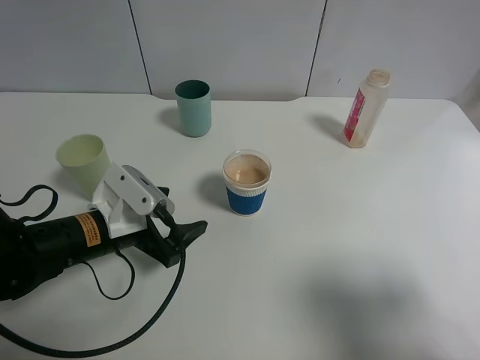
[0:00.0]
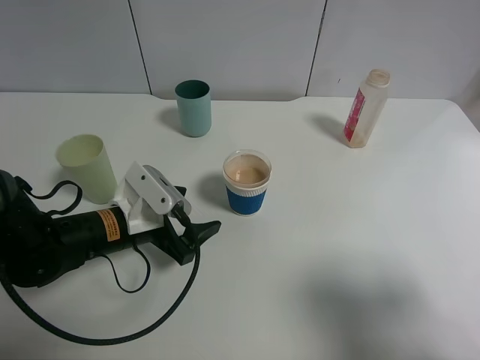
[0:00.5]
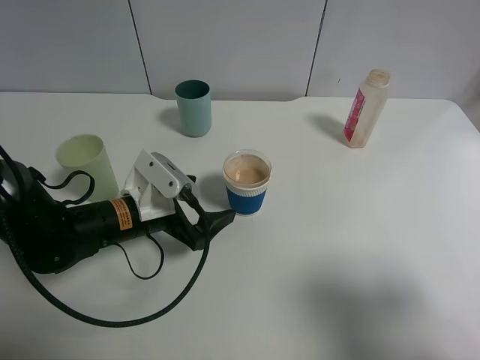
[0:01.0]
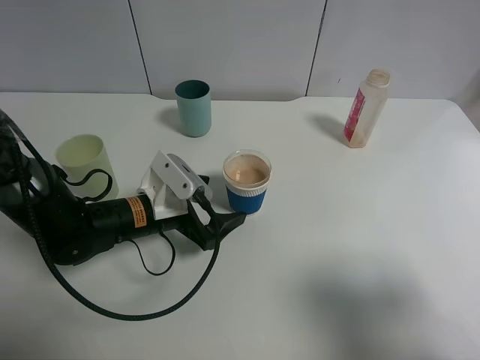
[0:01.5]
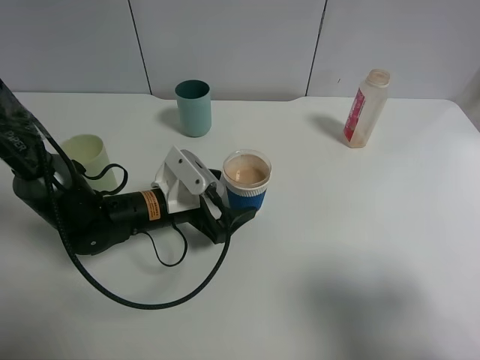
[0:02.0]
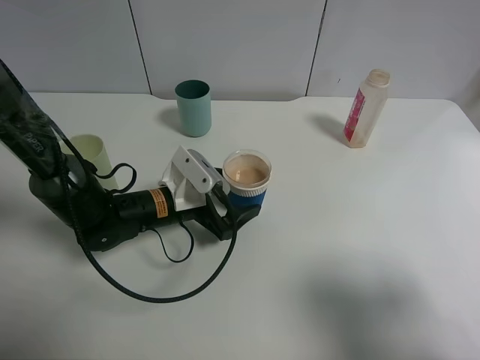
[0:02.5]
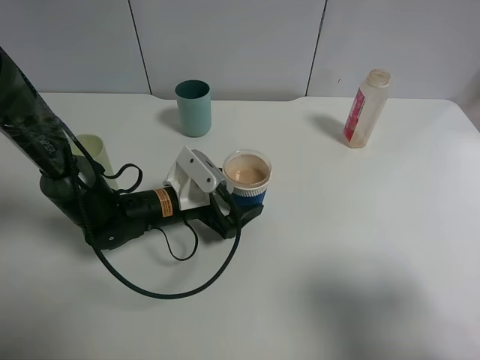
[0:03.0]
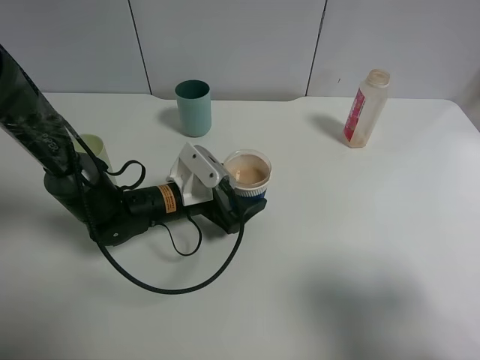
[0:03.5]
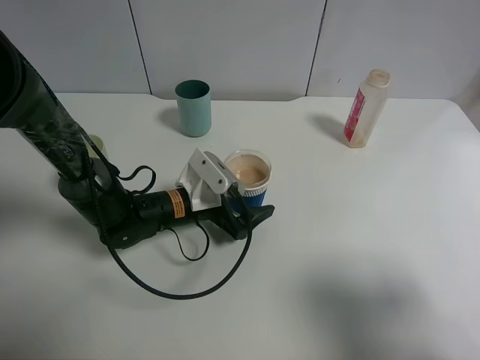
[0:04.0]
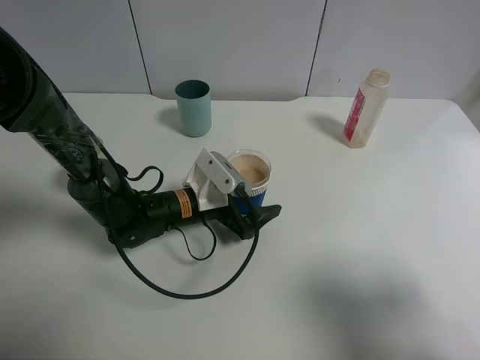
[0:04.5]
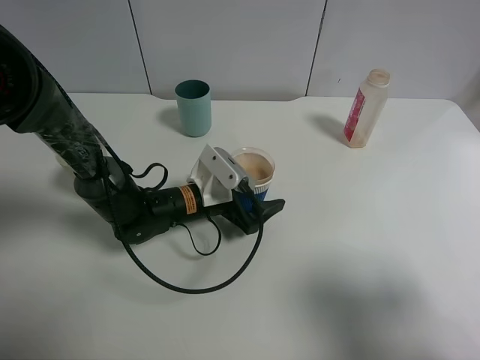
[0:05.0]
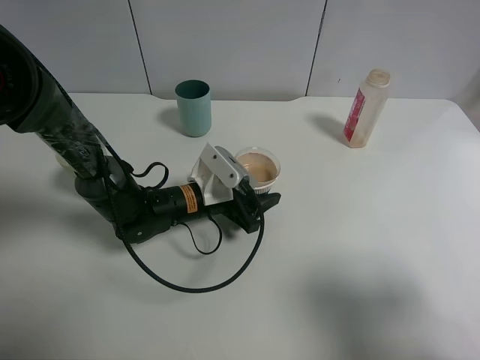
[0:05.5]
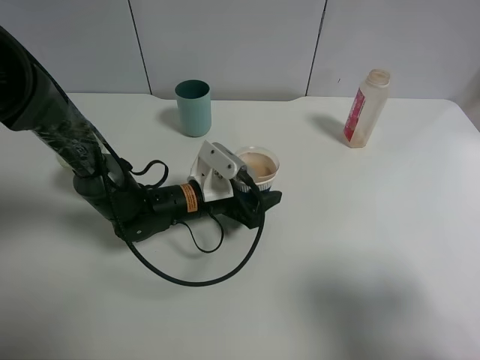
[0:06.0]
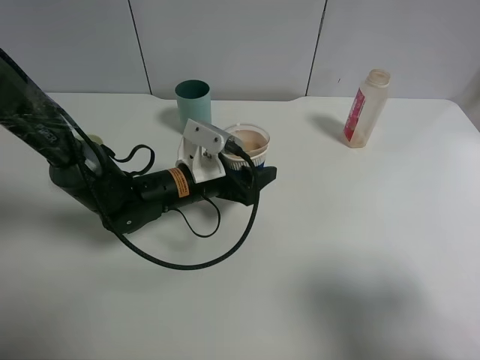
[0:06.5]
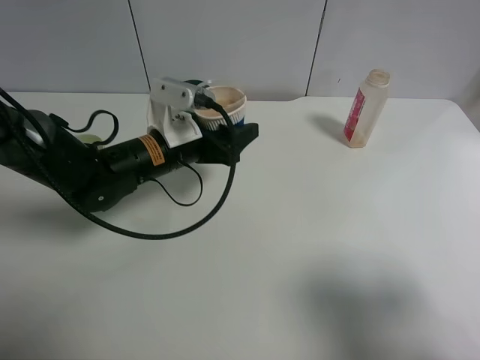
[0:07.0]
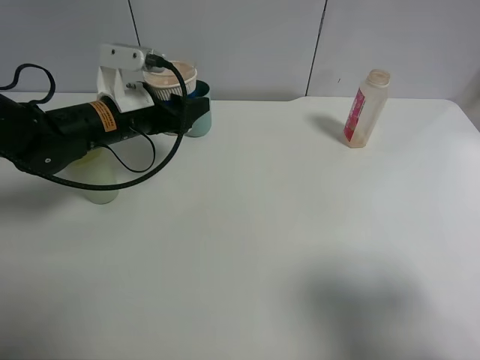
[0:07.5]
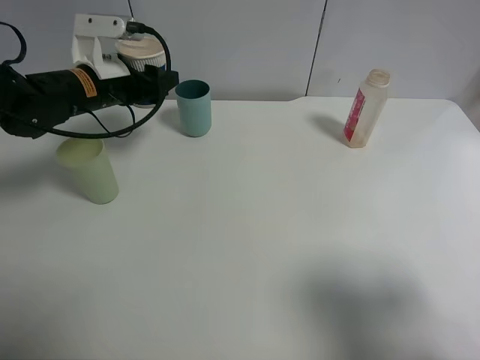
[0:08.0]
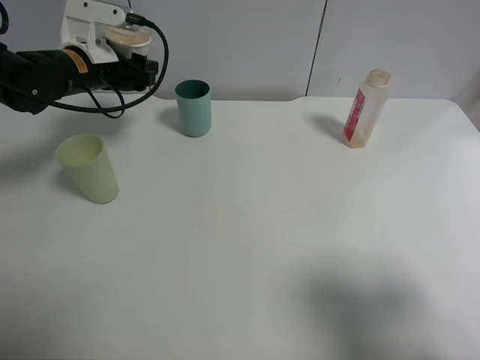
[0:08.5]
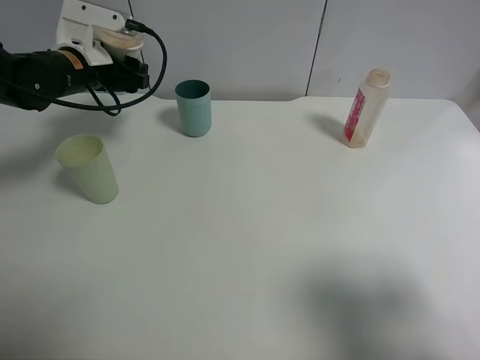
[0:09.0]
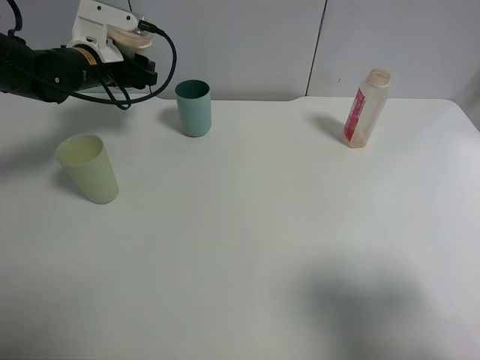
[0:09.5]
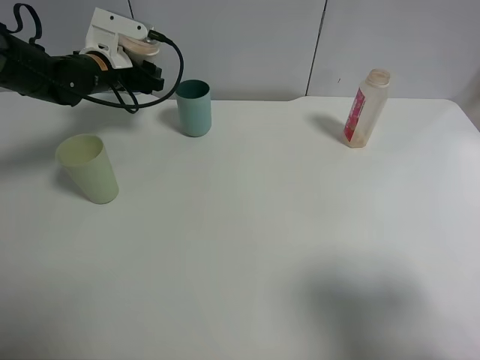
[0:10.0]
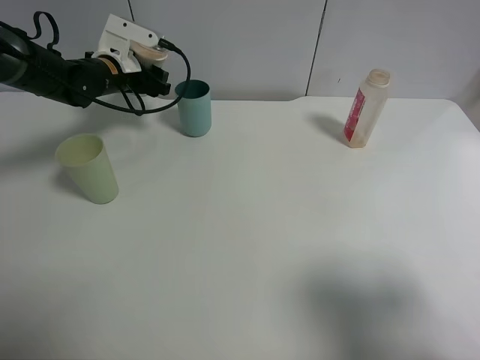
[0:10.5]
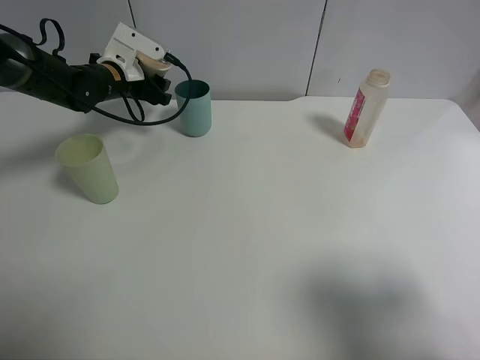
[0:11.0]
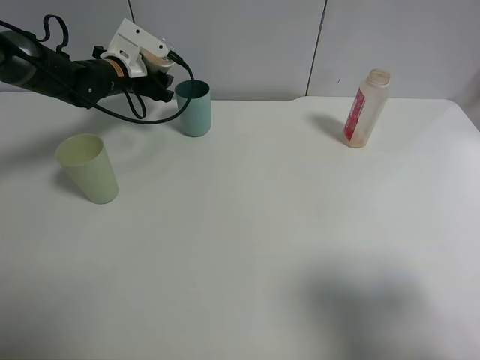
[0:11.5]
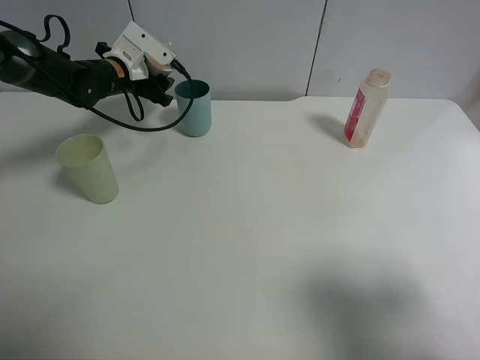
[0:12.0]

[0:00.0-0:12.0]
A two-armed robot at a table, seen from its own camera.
Task of the whole recording: use a clamp to hold the bottle of the drink, pour the beverage into a random cup, then clamp the cup containing the drink and pour the drink into another random cup.
Step, 0:00.0 to 0:06.0: Pick up the paper cup with left gripper.
0:00.0 to 0:02.0: The left gripper travels to the right and forward by roughly 10 cm.
0:02.0 to 0:04.0: The grippers move only a little.
0:04.0 to 0:06.0: The left gripper closes its fingers.
0:06.0 to 0:08.0: The left gripper heads upward, to the left and forward, covering roughly 20 cm.
0:08.0 to 0:10.0: The left gripper goes roughly 10 cm forward.
0:10.0 to 0:12.0: The grippers move only a little.

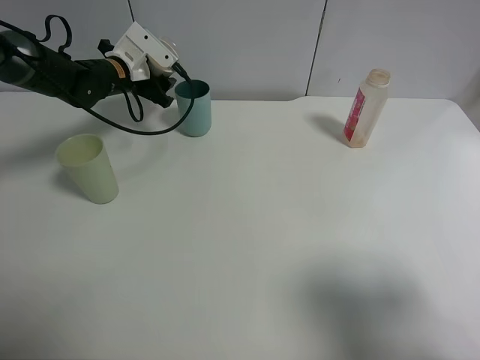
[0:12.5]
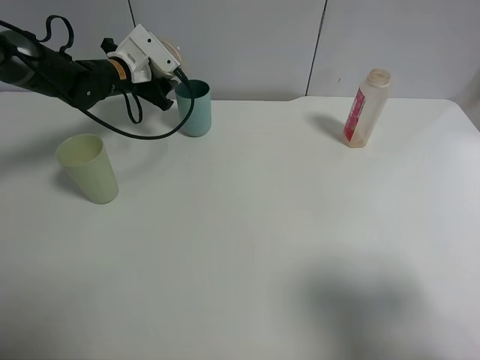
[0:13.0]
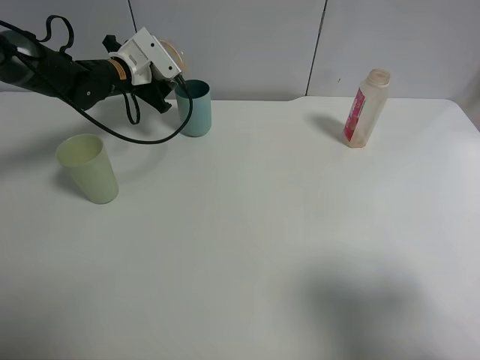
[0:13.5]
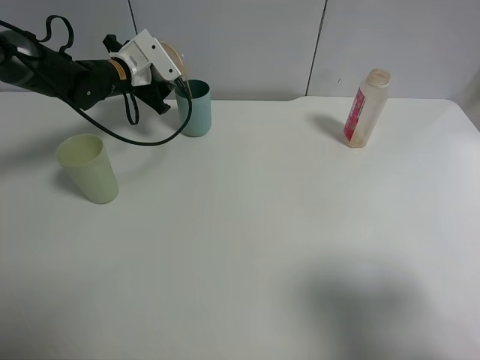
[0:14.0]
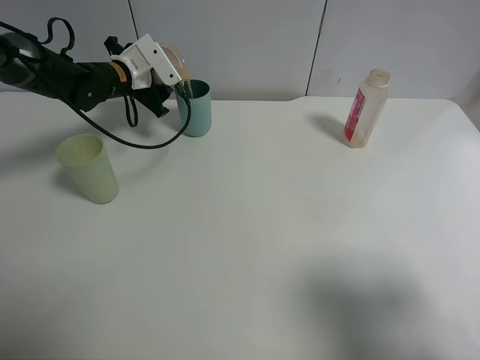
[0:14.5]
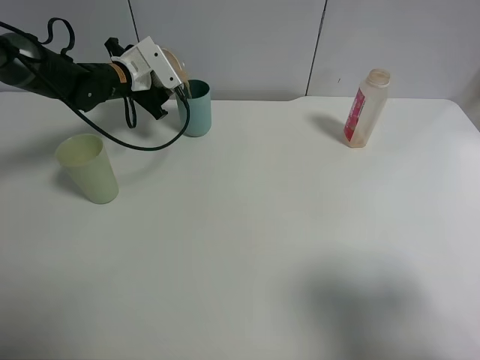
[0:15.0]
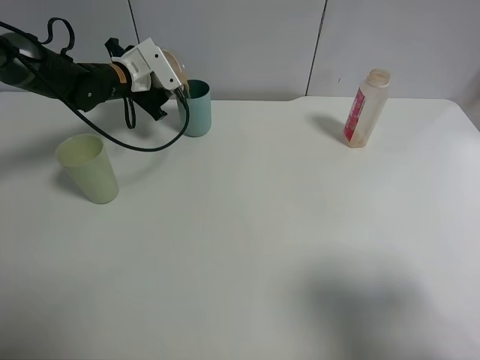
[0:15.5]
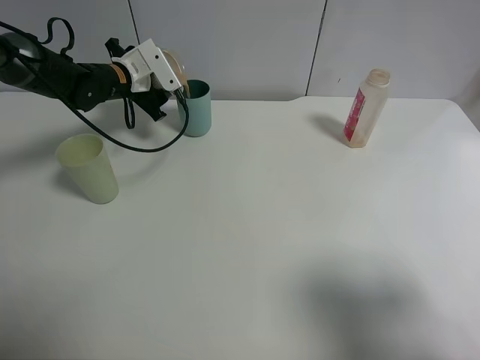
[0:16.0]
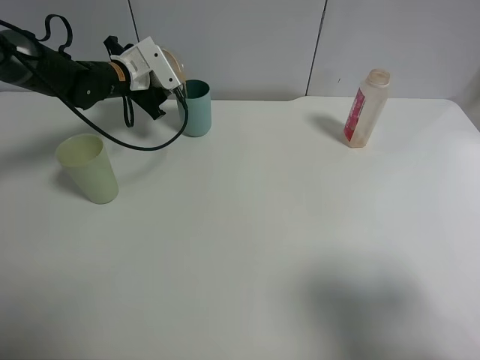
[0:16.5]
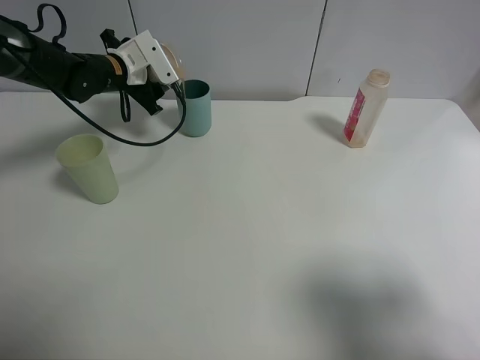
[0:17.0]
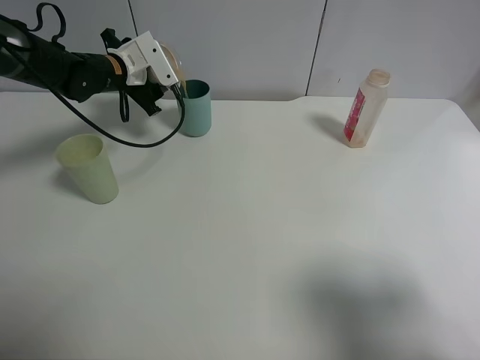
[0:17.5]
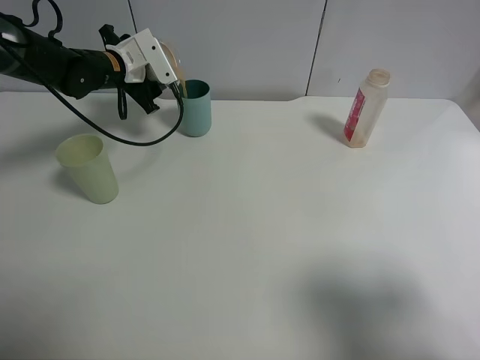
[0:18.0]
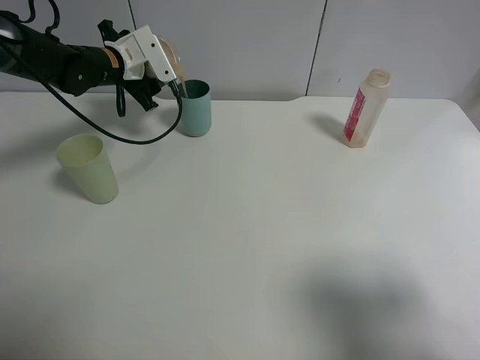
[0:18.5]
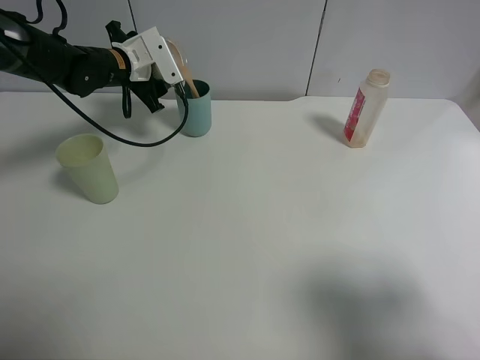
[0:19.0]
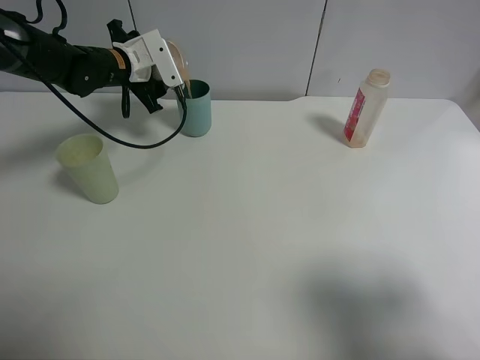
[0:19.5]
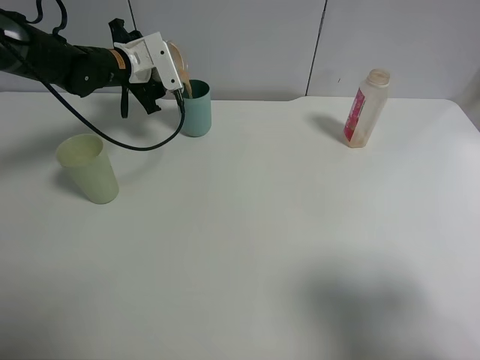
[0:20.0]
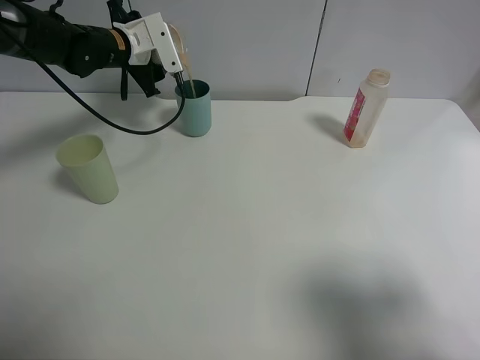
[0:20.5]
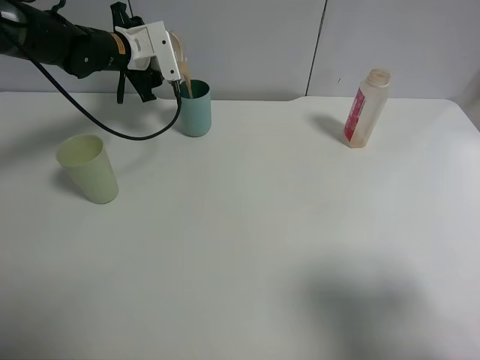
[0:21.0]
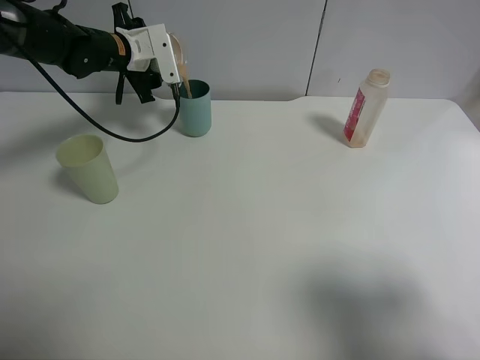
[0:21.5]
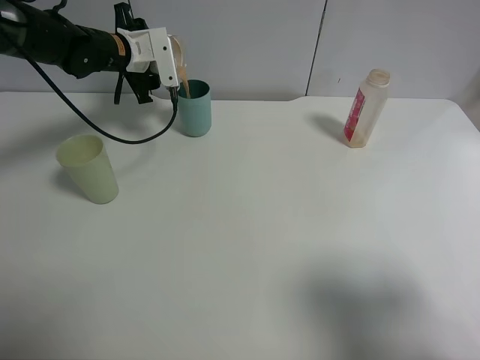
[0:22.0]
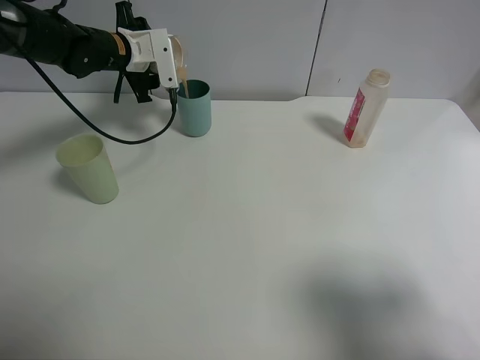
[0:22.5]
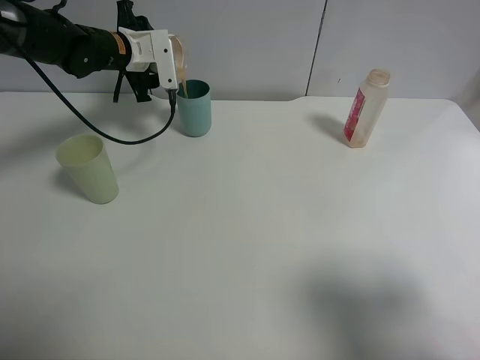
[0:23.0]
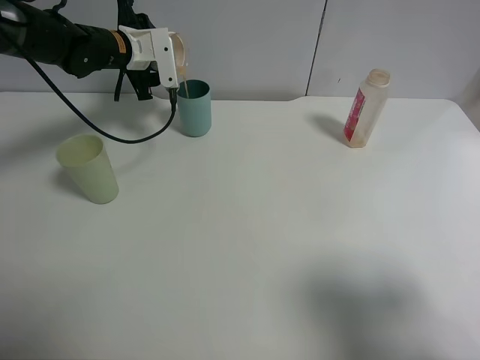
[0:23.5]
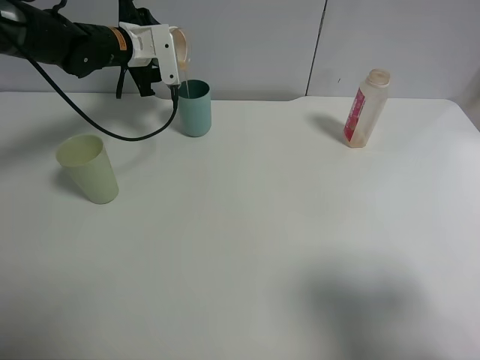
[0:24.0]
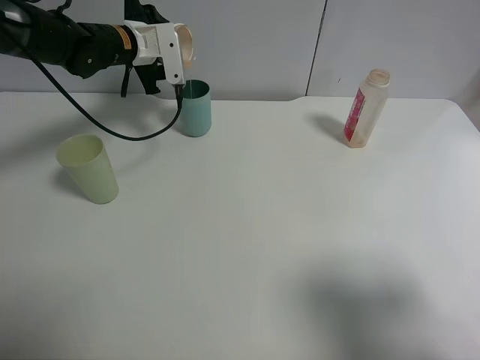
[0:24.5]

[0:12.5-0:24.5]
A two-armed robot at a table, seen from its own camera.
Task of the whole recording: use a clamp to hold the bottle of the drink, pour the beverage into a random cup, then clamp the cup containing the drink and pour the drink into another random cup.
0:12.5 to 0:14.5: The grippers make only small movements.
0:14.5 to 0:16.5: The two grippers keep their place.
0:16.5 to 0:20.5: The grippers make only small movements.
0:20.5 to 0:24.5: There are only small adjustments of the grippers.

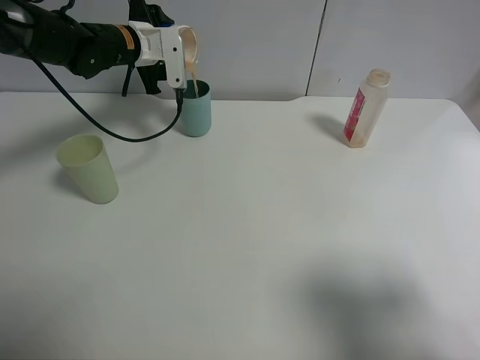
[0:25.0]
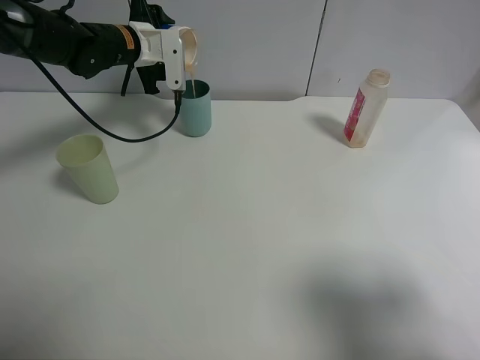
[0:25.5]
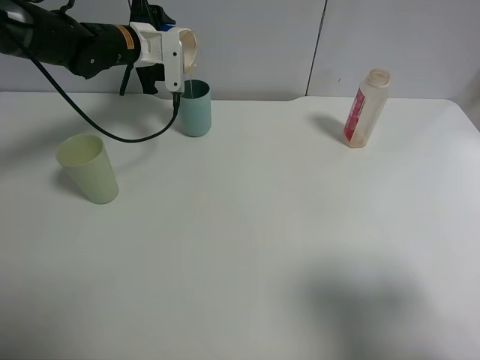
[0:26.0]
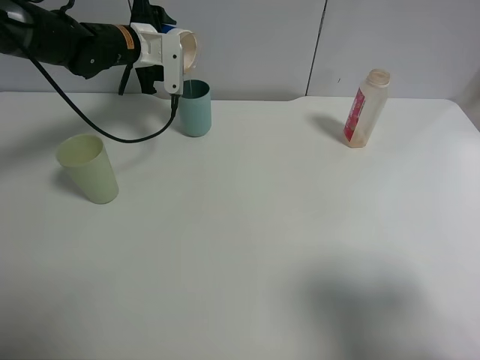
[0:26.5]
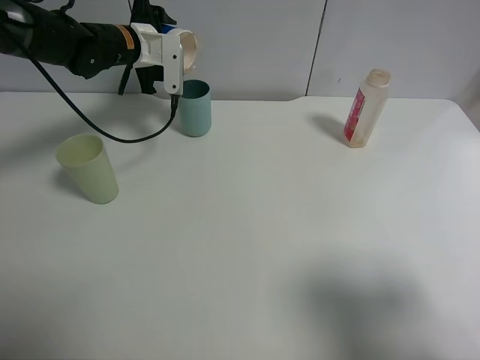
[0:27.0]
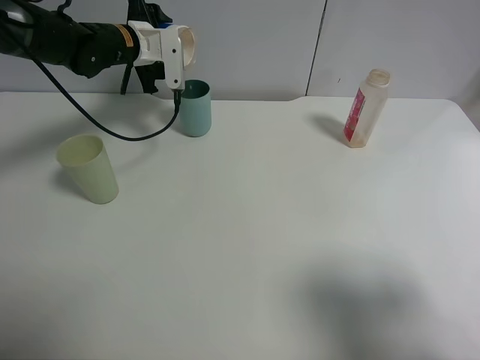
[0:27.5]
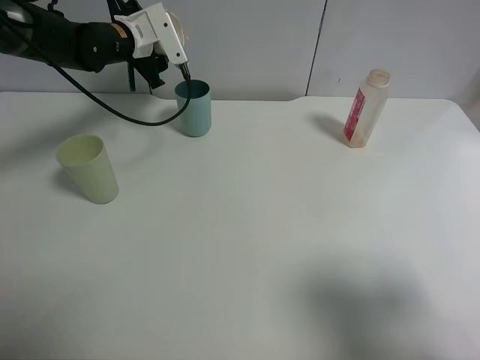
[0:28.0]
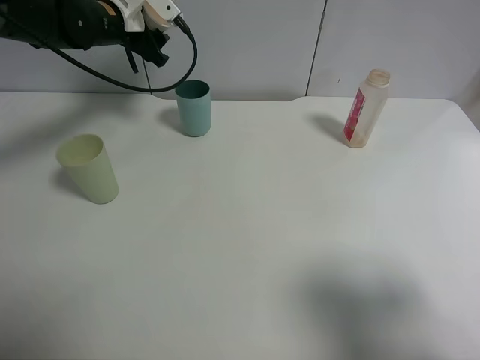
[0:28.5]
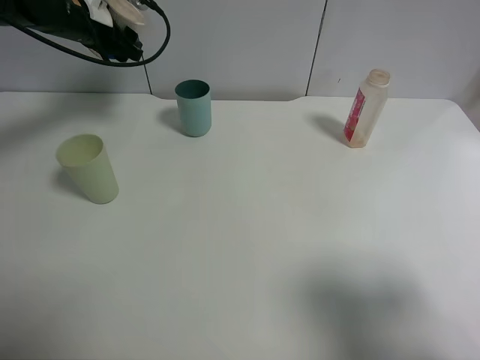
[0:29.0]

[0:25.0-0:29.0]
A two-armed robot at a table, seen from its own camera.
Task of the whole recording: use a clamp to hold the bottle of the drink, pour the beverage into a random cup, then clamp the cup containing the drink and pour the drink into another random cup.
Step, 0:25.0 to 0:27.5: Pour the drink into the blue plastic cup with left gripper.
0:25.0 to 0:27.0: The grippers stay close to where they were, moving slightly.
0:27.0 to 0:29.0: The left gripper travels to the left by roughly 5 cm.
